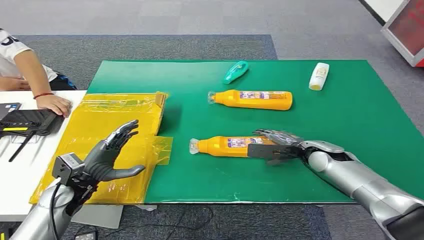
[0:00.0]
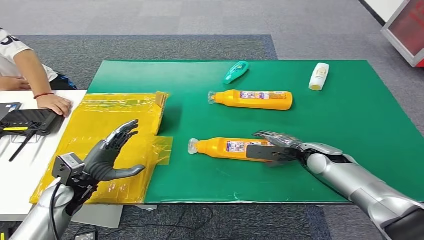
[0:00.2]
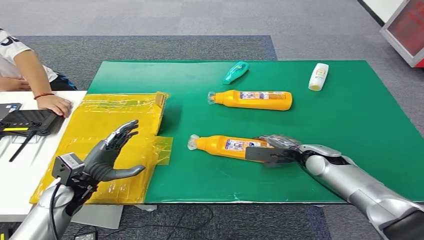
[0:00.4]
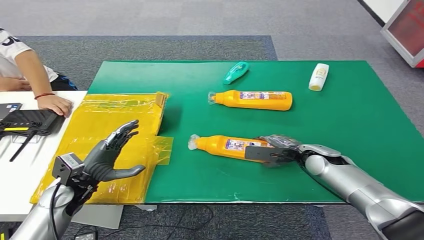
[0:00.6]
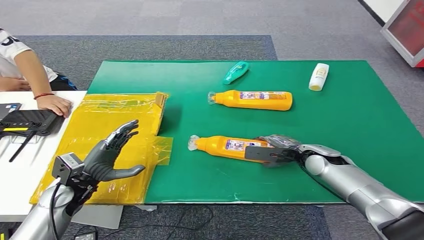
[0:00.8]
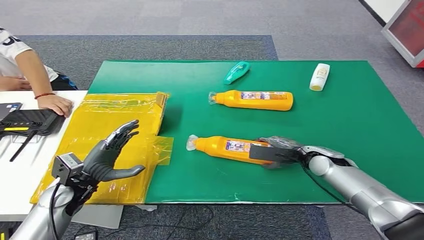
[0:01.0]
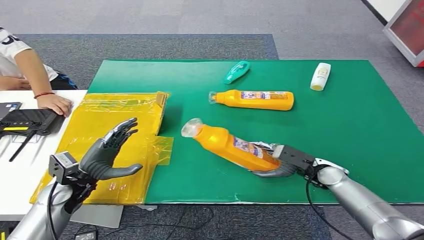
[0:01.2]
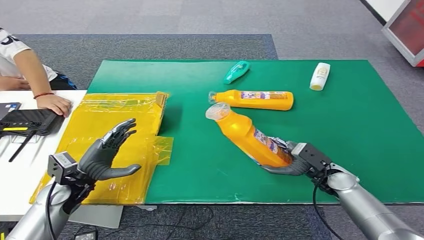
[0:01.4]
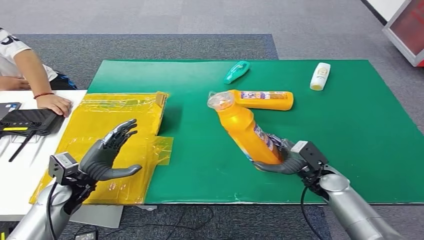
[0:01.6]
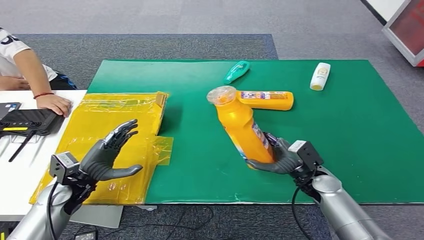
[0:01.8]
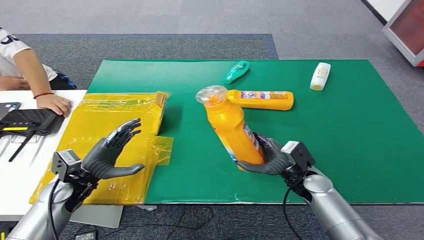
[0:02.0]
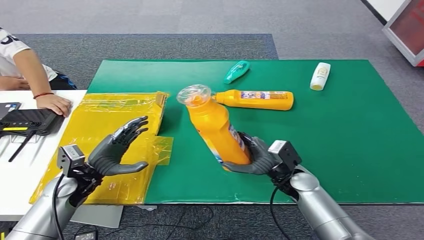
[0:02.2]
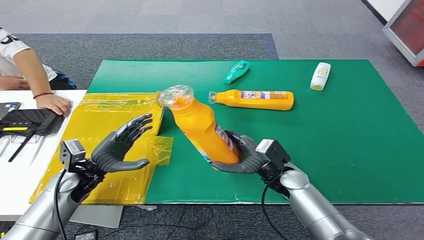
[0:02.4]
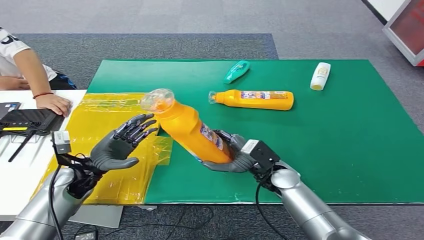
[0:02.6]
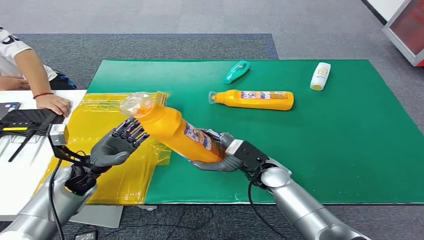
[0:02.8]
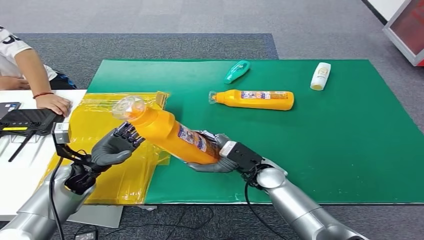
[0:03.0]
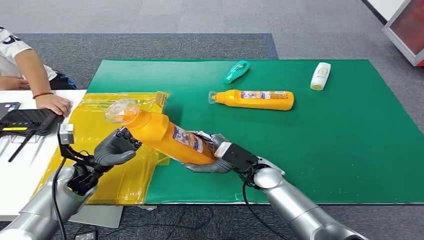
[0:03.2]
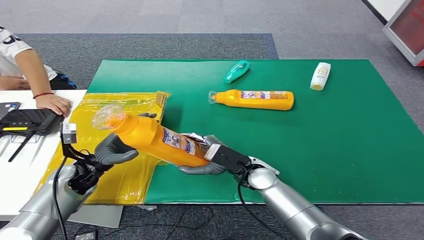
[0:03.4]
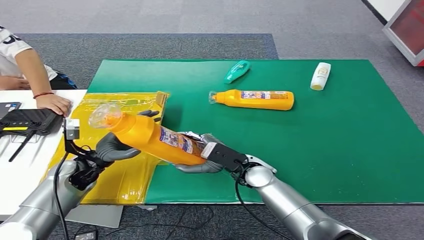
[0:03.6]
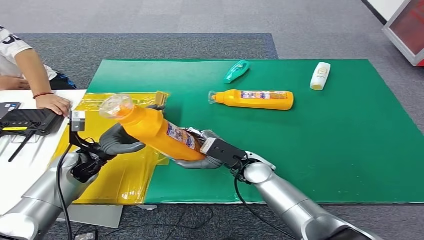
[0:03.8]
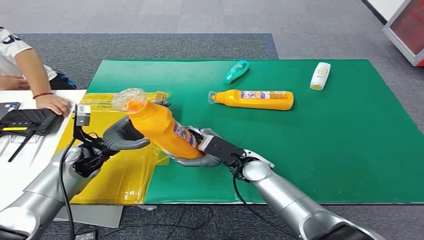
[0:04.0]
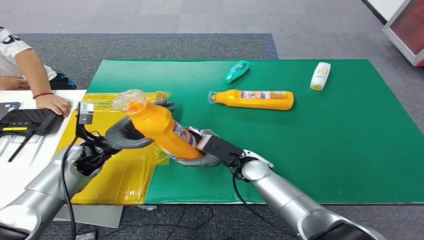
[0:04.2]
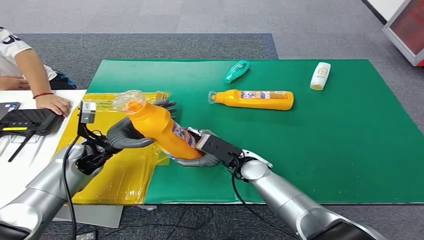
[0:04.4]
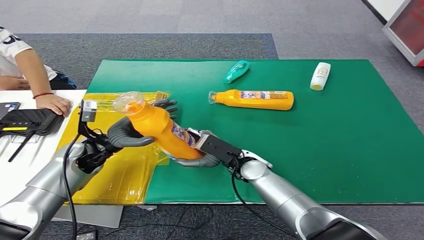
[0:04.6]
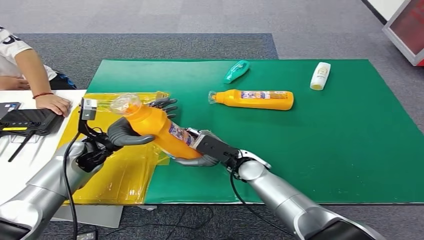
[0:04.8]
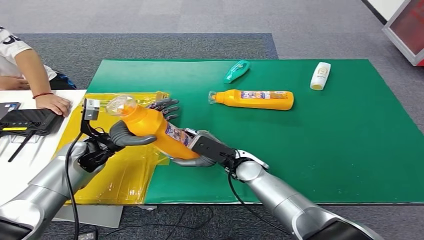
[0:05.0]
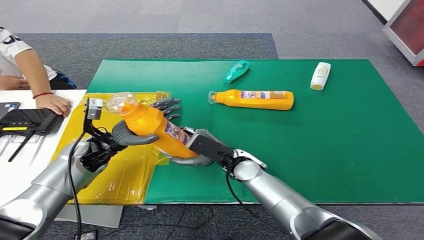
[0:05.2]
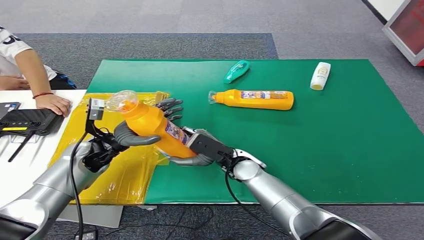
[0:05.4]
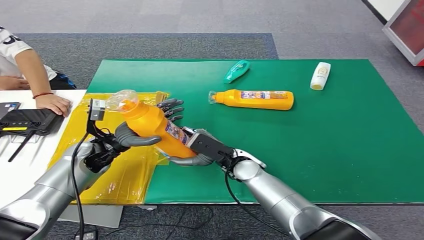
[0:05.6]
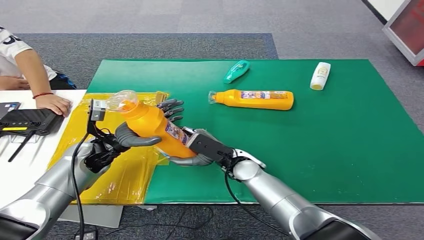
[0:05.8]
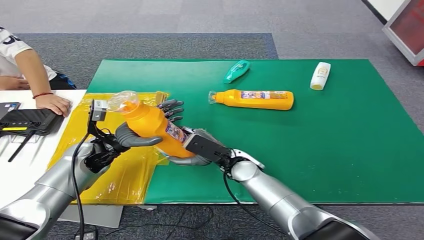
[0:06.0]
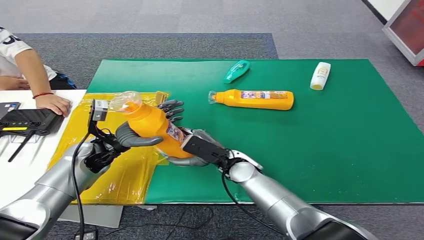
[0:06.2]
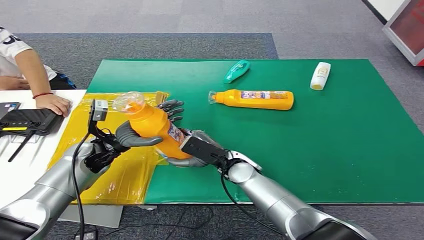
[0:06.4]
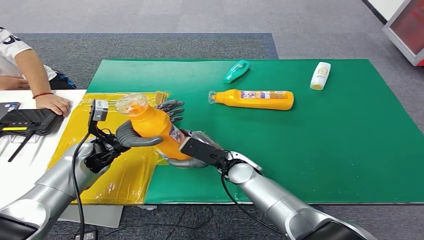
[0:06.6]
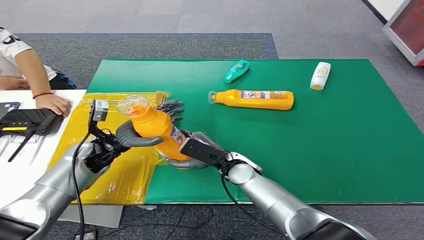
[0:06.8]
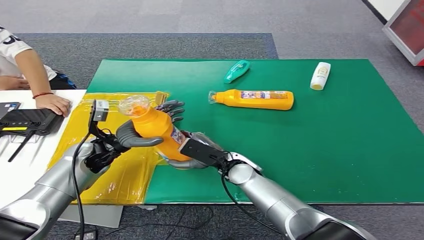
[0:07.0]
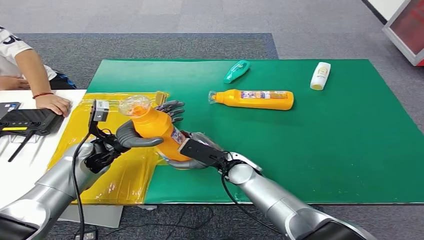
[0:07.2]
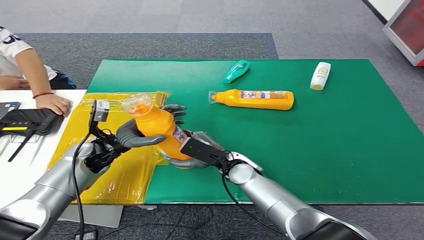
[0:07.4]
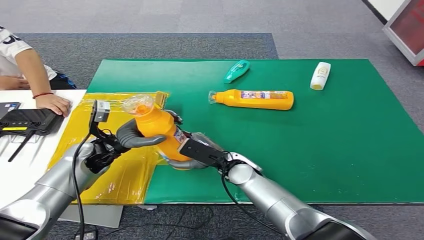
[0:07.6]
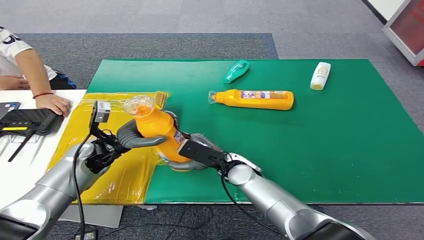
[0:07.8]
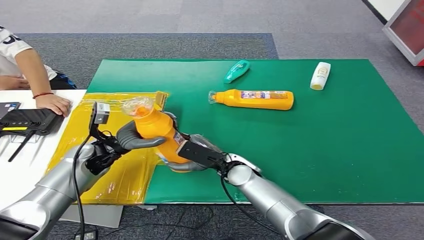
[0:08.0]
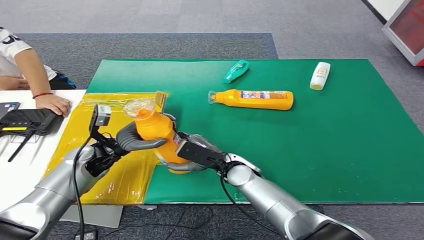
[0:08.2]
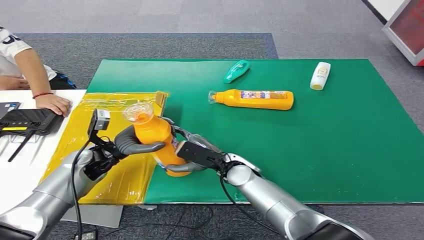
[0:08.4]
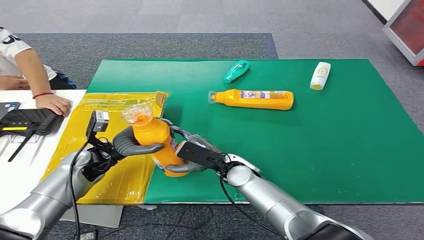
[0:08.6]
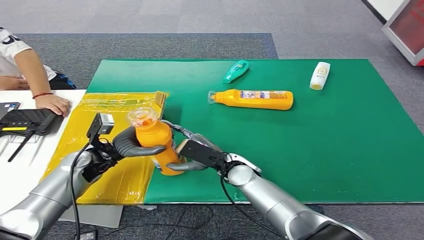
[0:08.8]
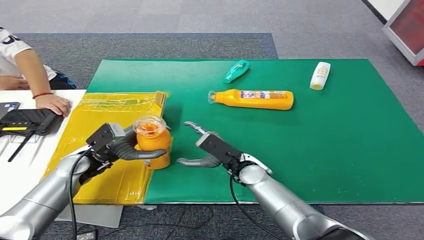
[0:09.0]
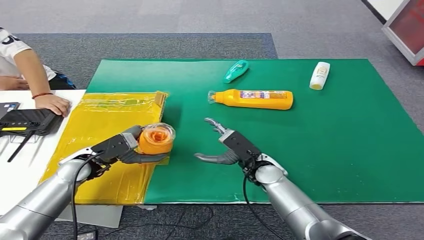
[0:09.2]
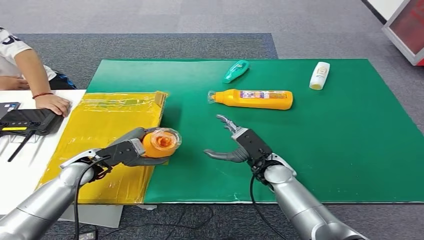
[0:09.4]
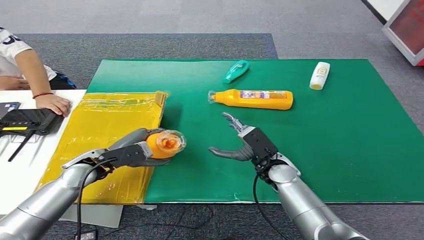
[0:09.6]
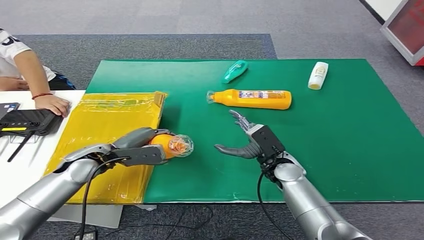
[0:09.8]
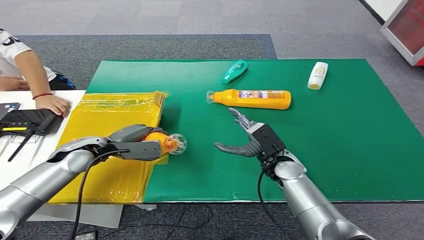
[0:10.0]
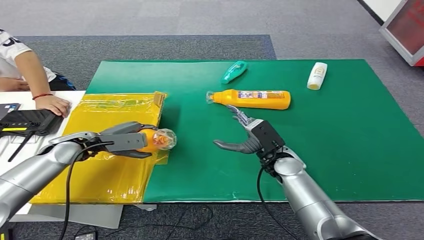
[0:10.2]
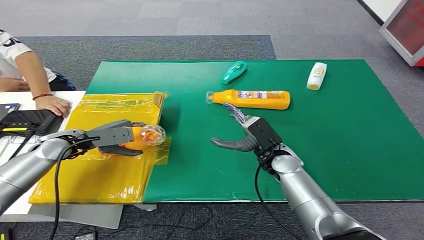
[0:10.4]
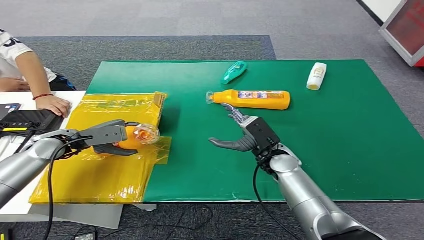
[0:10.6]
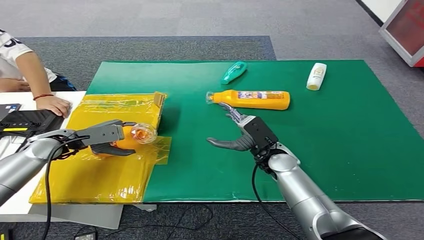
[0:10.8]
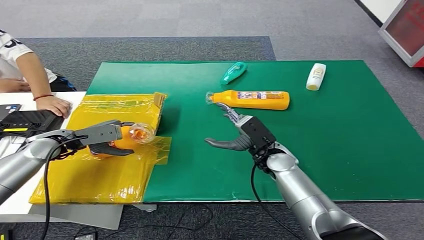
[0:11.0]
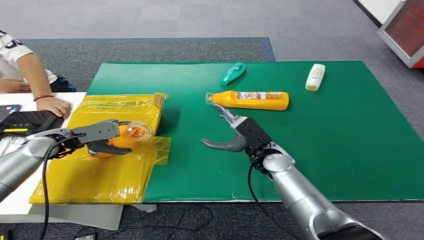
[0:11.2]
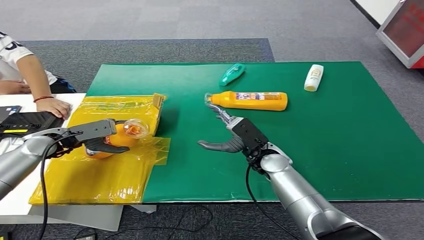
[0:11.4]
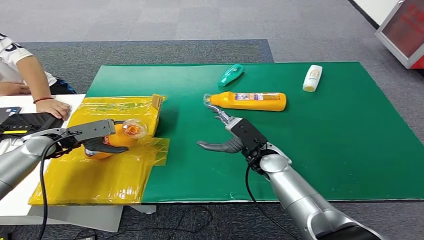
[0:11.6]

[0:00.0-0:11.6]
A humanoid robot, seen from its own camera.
Step, 0:00.0 to 0:03.0: Pick up the bottle from the table.
0:01.4 to 0:02.8: The right hand shifts about 15 cm to the left.
0:02.8 to 0:04.4: The left hand moves about 5 cm.
0:04.4 to 0:08.8: The hands move only a little.

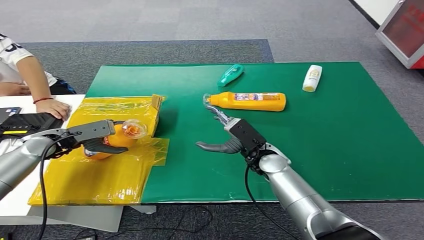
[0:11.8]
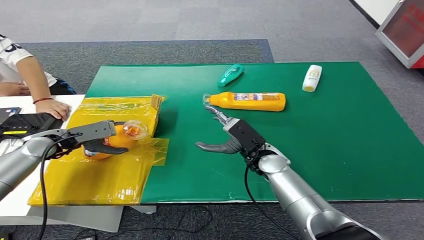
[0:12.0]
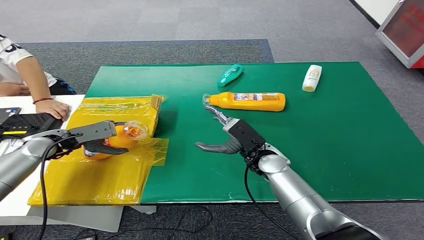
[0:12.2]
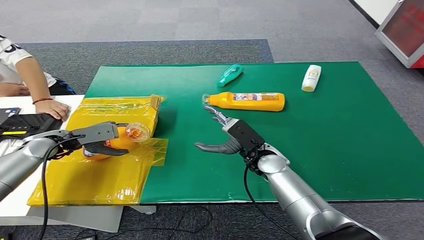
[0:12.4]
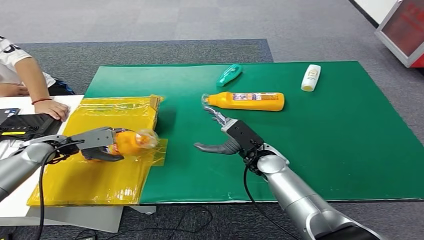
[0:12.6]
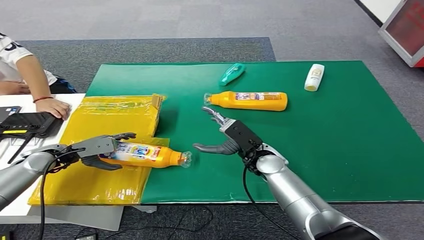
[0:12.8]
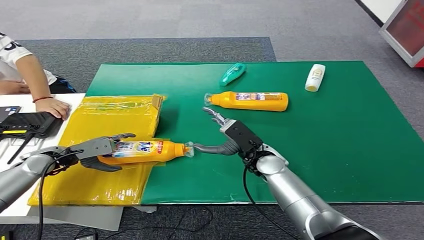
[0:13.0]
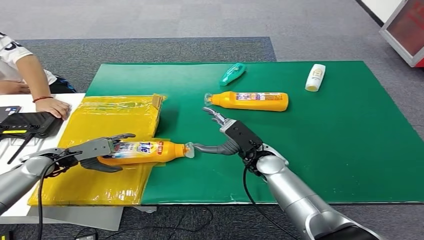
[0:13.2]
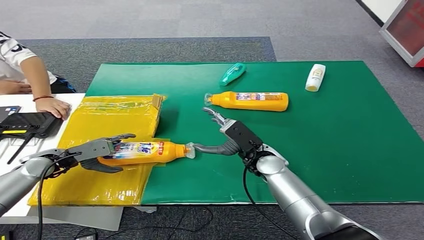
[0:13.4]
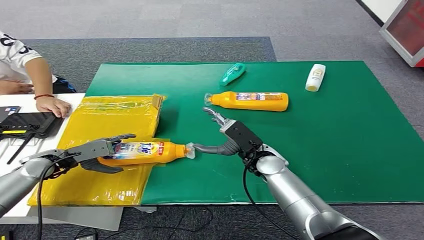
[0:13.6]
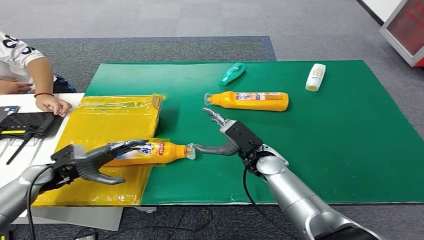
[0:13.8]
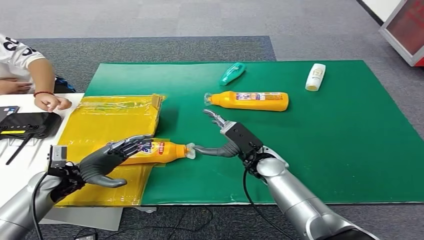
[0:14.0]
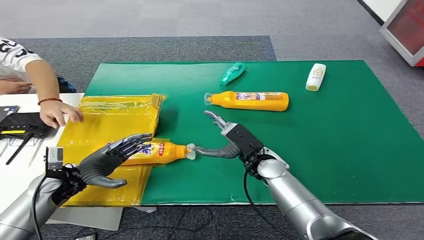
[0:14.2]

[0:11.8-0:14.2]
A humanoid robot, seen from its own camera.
Step, 0:11.8 to 0:14.0: Turn the bottle to the front side.
0:11.8 to 0:13.0: The left hand moves some 5 cm.
0:13.0 to 0:14.2: The left hand is displaced to the right and backward by about 10 cm.
